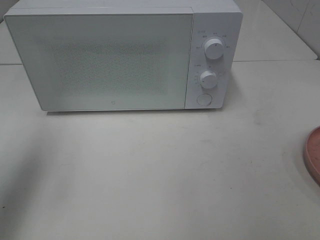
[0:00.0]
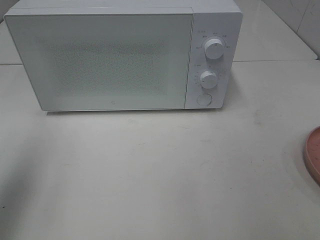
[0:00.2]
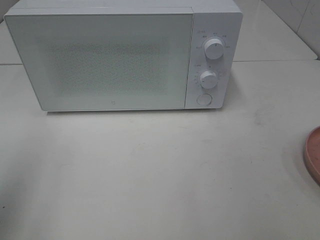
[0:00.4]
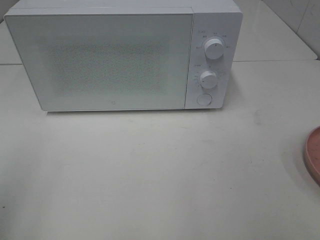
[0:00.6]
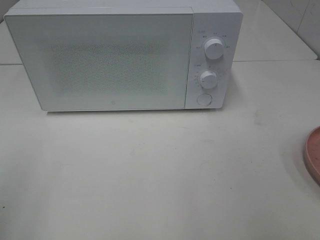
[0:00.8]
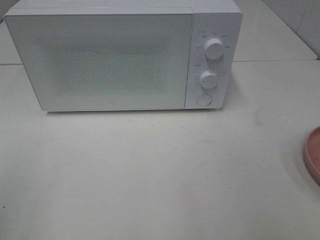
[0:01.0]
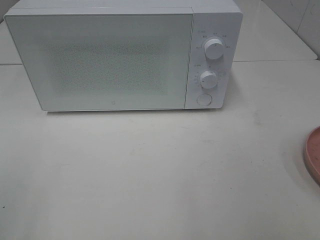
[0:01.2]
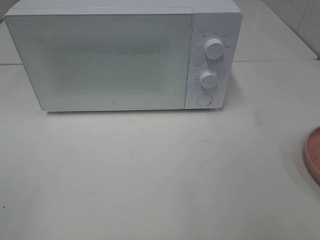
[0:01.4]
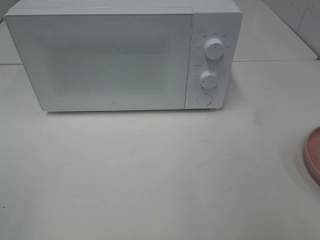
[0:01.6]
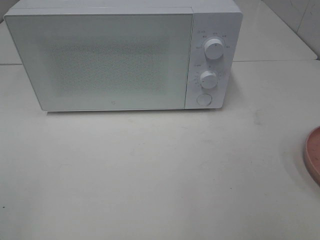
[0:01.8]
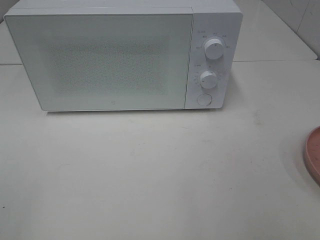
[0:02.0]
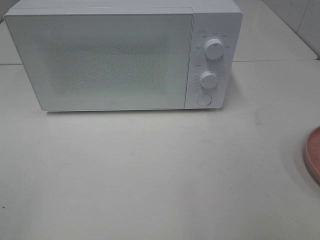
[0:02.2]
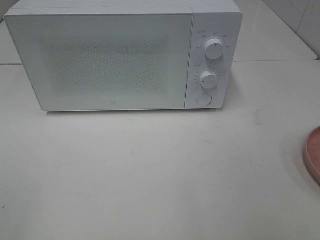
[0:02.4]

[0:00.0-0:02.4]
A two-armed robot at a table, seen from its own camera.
Task of the whole recording: Heat the burger.
0:00.0 to 0:01.2: The left gripper is displaced backward by roughly 20 cm.

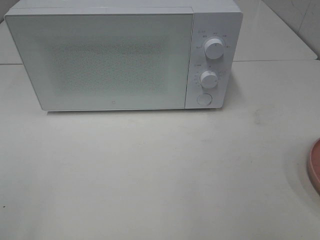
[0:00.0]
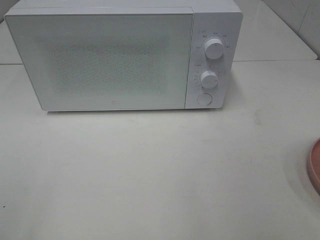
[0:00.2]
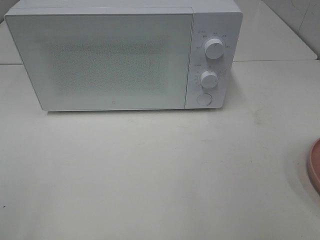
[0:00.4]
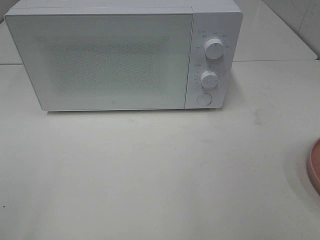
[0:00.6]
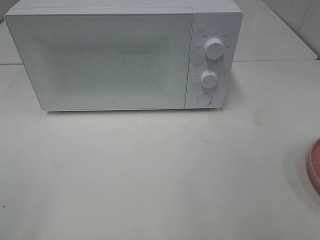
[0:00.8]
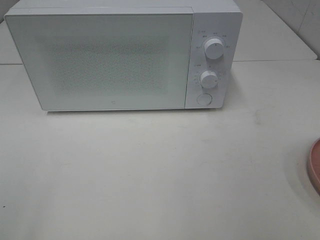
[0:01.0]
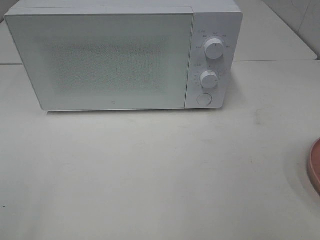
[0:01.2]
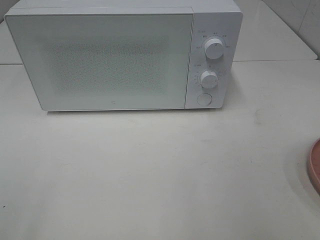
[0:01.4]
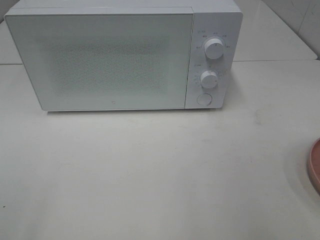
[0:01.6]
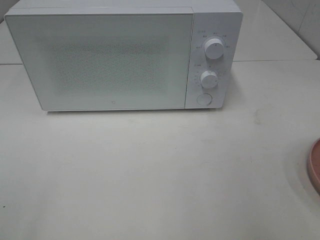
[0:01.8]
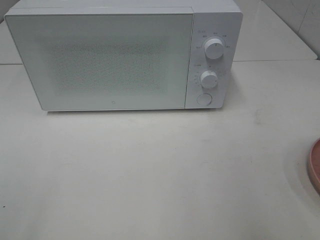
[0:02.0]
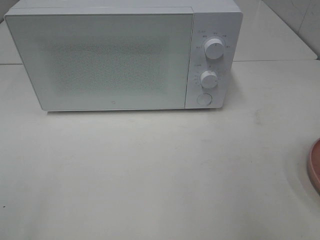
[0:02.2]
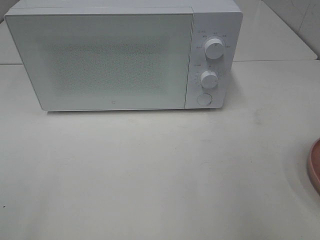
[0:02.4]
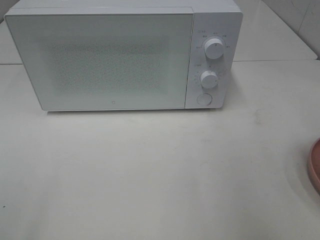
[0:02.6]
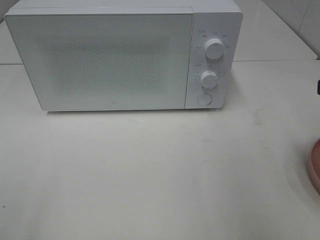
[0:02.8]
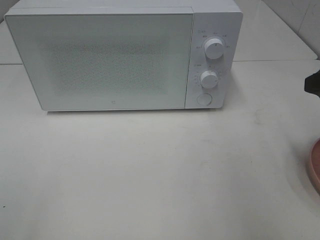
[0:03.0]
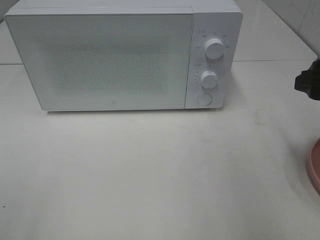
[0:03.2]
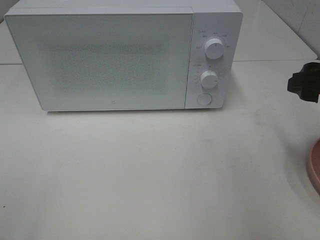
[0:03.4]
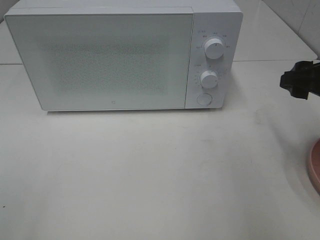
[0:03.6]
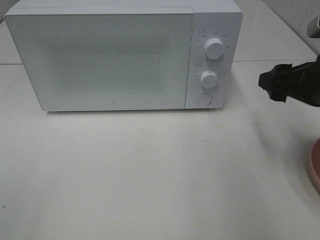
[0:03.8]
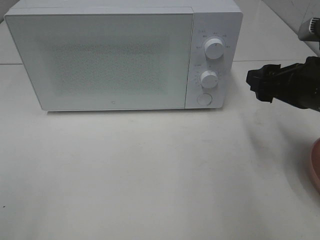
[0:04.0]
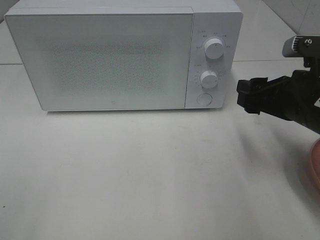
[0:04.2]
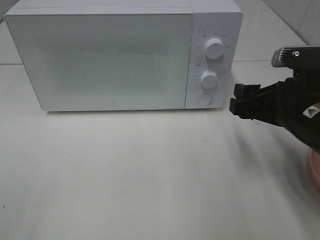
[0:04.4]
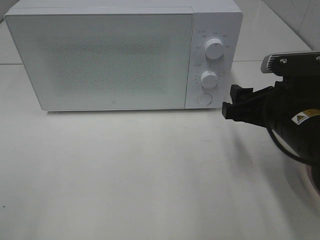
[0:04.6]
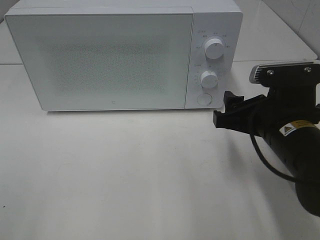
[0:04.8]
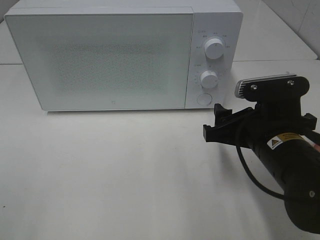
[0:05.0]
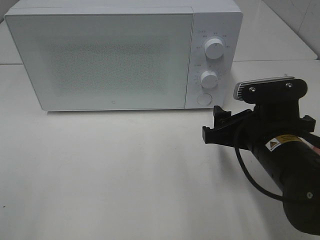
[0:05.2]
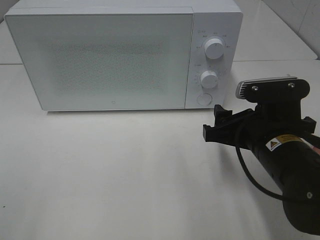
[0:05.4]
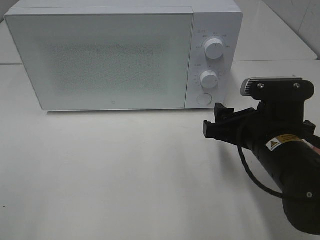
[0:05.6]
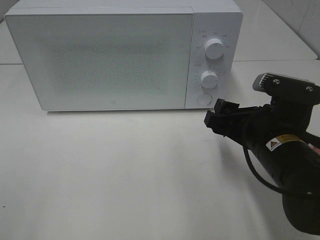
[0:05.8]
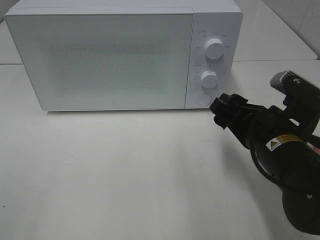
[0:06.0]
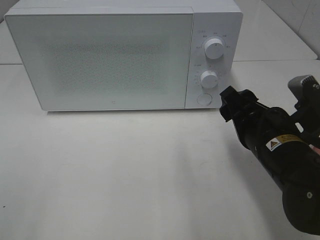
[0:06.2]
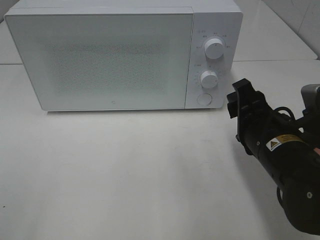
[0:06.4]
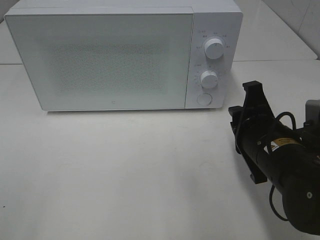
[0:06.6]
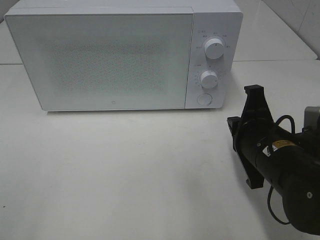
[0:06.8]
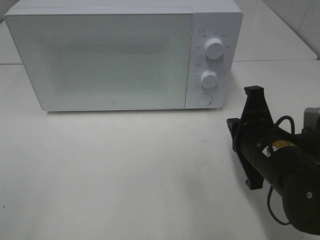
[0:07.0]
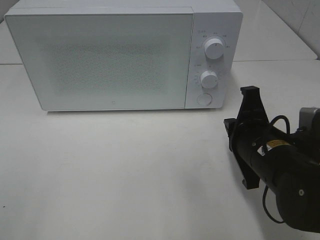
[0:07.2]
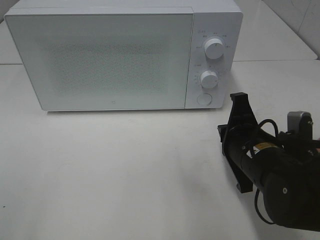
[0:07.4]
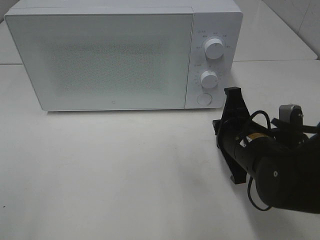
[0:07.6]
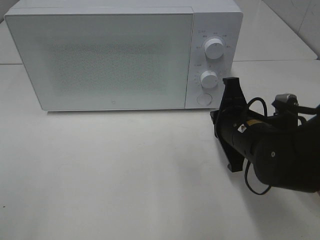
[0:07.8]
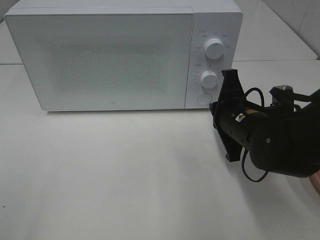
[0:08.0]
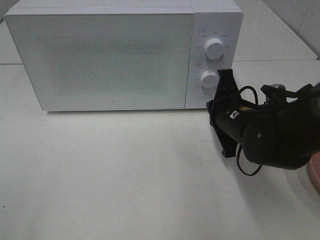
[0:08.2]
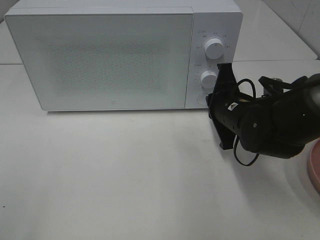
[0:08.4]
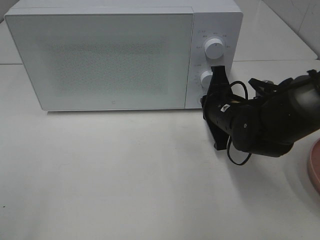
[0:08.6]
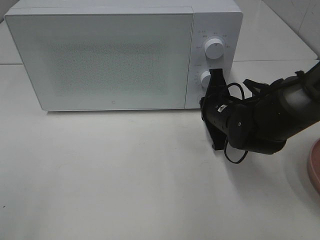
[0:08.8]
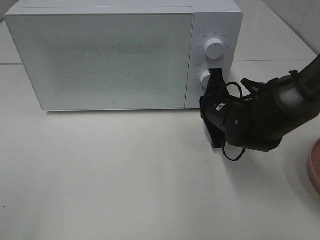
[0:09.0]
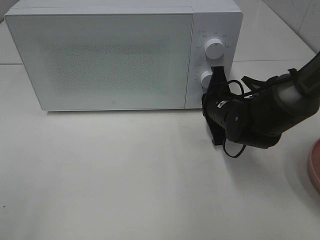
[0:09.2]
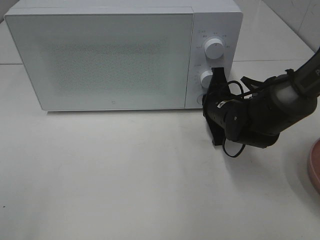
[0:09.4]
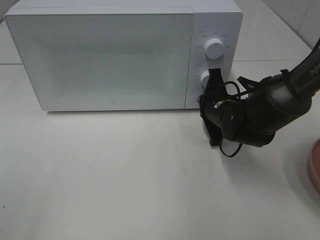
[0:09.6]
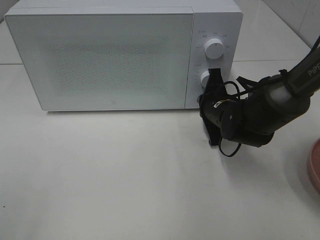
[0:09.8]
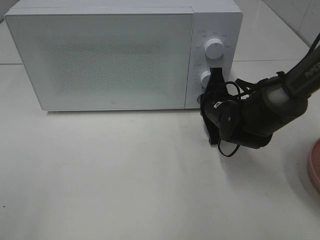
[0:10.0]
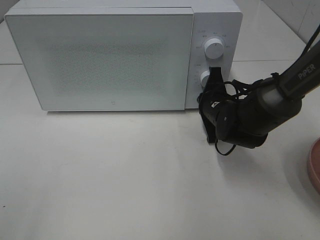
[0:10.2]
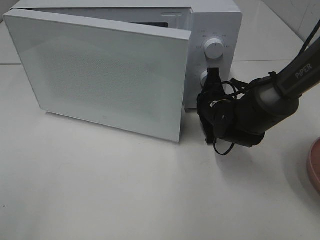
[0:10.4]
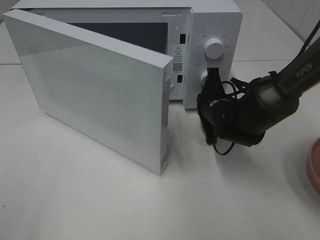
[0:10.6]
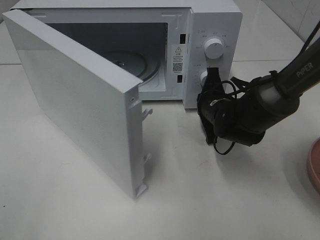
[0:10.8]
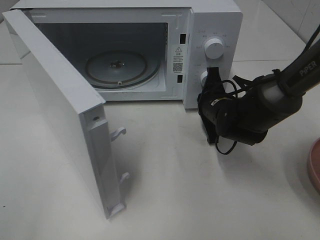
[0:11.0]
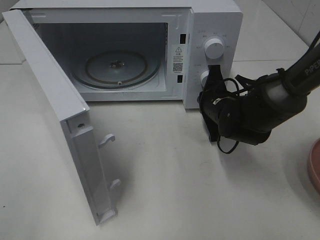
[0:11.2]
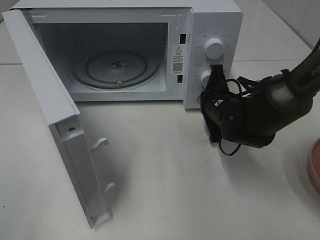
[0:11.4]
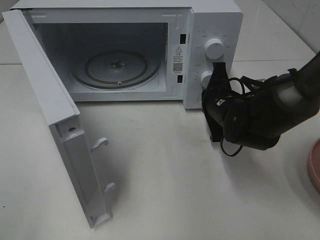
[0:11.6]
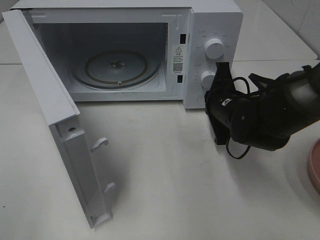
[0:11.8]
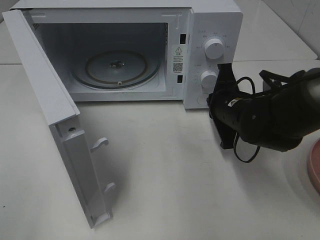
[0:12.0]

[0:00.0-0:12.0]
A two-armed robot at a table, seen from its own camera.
Task of the whole recording: Heat the burger.
0:01.6 to 0:03.0: The right gripper moves forward, about 15 cm.
0:03.0 to 0:04.4: The right gripper heads downward and to the left, covering roughly 10 cm.
0:04.4 to 0:06.0: The right gripper ends up some 5 cm from where it was.
0:06.0 to 0:07.6: The right gripper closes its fingers.
0:07.6 to 0:09.0: The right gripper goes roughly 10 cm forward.
0:09.0 to 0:10.4: The grippers make only small movements.
0:10.4 to 0:12.0: The right gripper ends up some 5 cm from where it was.

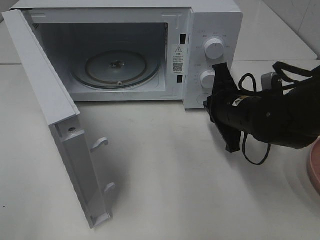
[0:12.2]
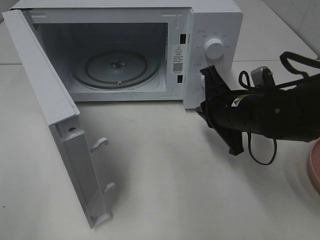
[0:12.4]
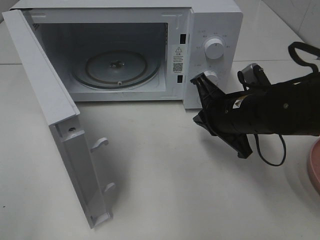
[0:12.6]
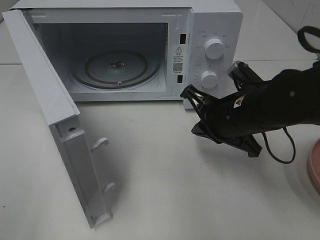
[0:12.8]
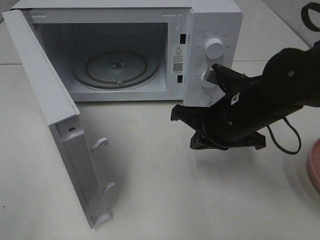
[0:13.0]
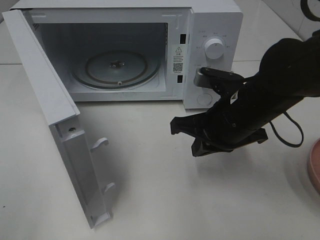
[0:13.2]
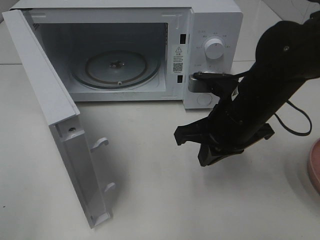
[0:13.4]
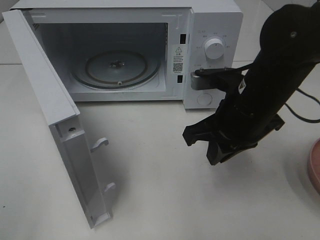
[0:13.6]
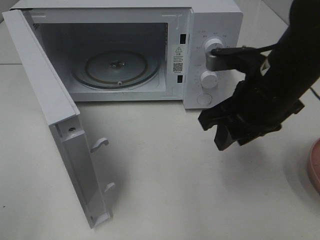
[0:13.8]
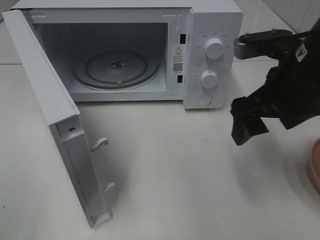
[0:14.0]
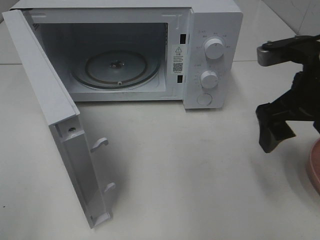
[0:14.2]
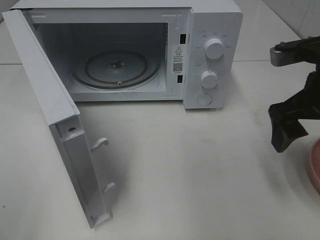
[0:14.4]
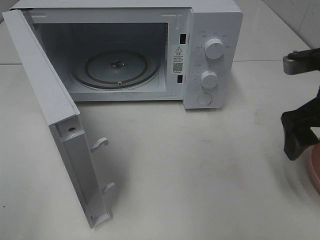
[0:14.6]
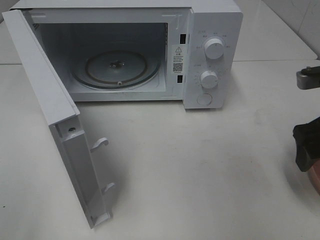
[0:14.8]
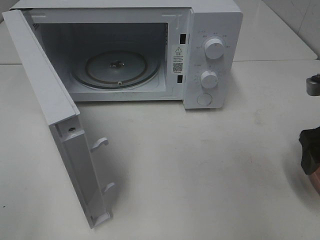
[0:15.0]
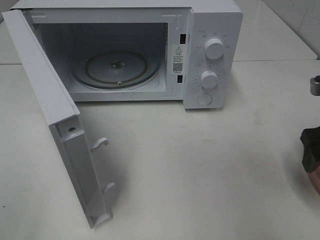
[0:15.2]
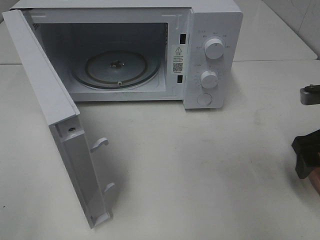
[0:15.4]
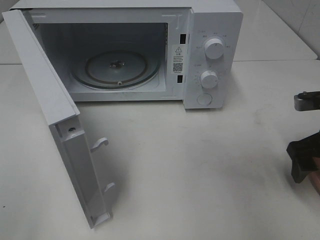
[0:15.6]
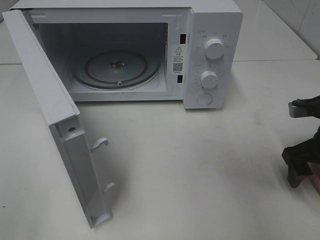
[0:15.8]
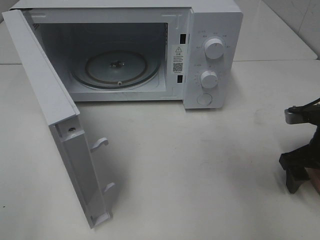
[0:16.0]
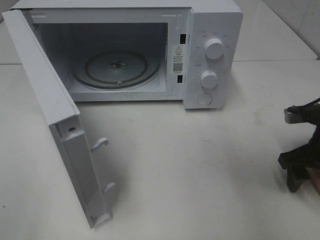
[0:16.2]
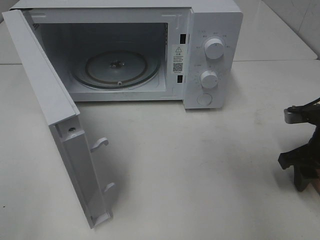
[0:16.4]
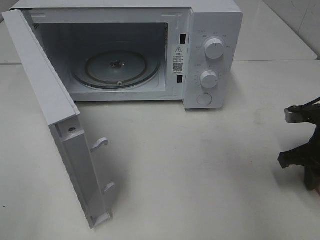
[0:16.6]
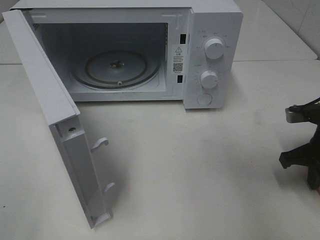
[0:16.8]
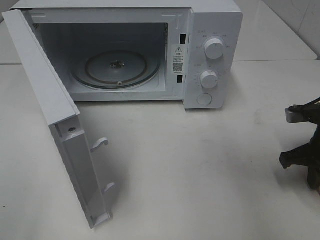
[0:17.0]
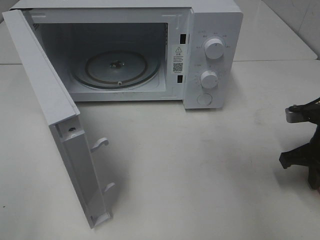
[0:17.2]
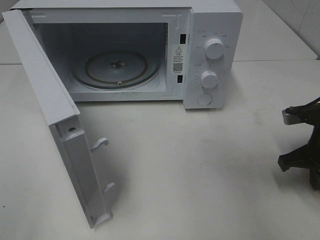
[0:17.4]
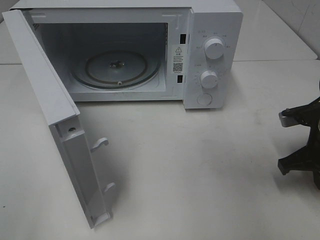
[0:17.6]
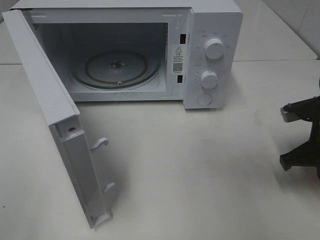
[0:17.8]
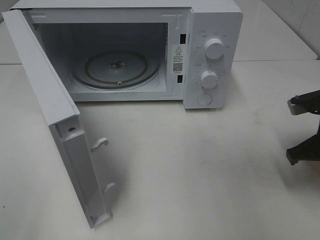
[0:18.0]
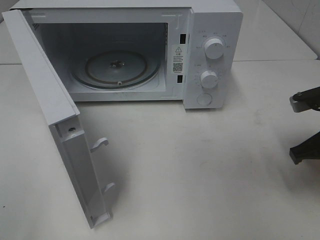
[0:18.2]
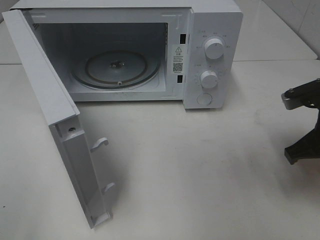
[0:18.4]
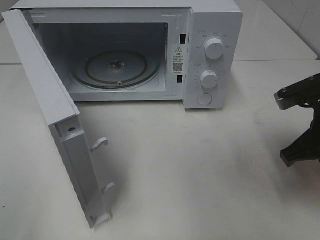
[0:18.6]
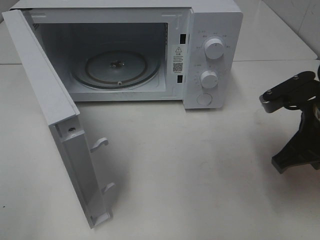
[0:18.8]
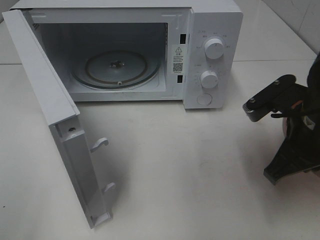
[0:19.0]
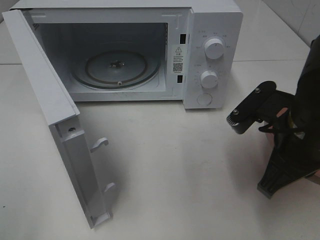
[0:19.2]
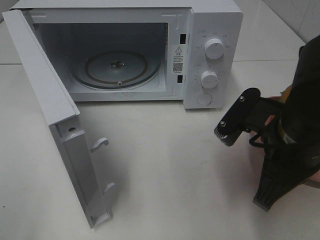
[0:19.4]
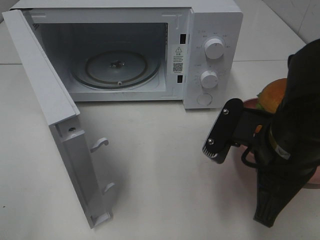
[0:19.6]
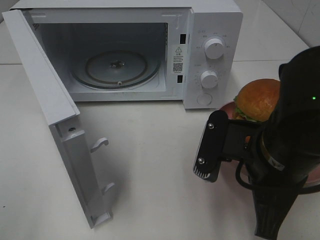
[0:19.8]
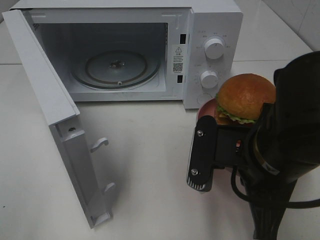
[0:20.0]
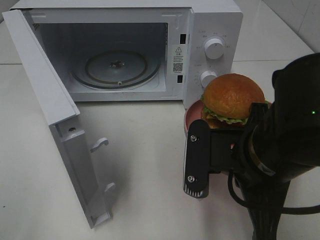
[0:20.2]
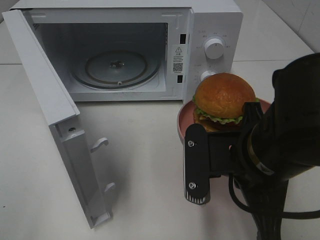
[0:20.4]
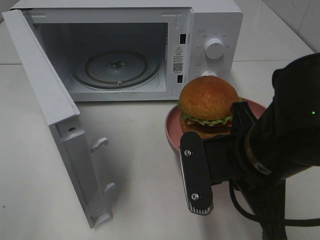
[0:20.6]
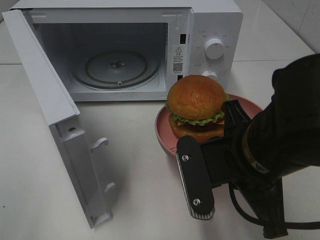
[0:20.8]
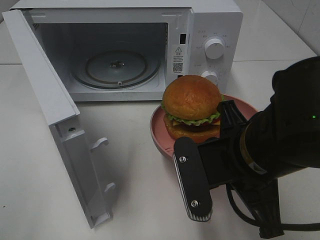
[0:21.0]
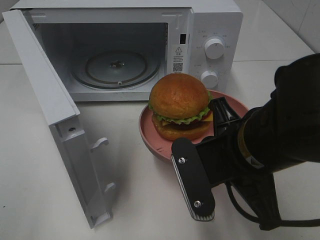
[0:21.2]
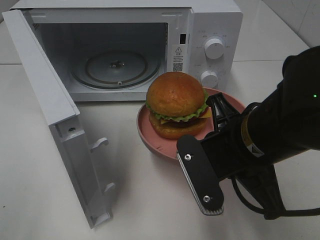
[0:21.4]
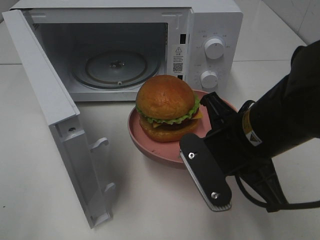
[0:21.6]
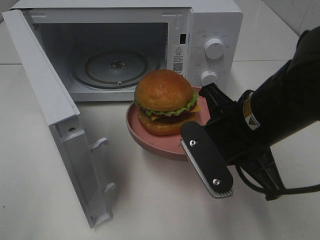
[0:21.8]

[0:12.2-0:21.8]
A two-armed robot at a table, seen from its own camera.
Task of the whole recording: Heat the burger.
Step, 0:12.4 to 0:17.8: Right hand: grab the plate with the hamburger.
0:12.2 to 0:13.8: The right gripper moves upward, roughly 10 cm, and opens its fingers.
0:13.8 to 0:15.4: The right gripper travels to the right and downward by about 15 cm, and opens its fingers.
0:15.4 to 0:17.0: The right gripper shifts by approximately 5 cm, and closes up.
0:17.0 to 0:18.6: The right gripper is displaced upward and to the left by some 10 cm.
0:18.6 to 0:20.2: The right gripper moves to the left and backward, approximately 15 cm.
